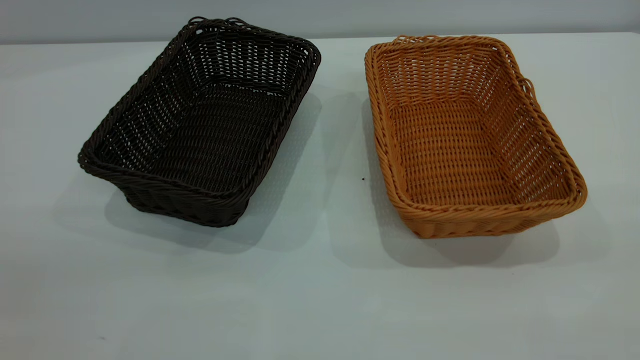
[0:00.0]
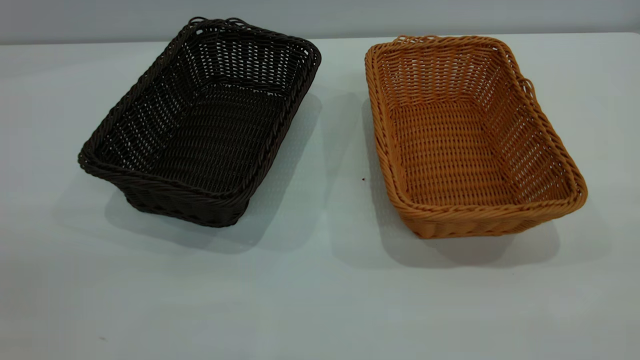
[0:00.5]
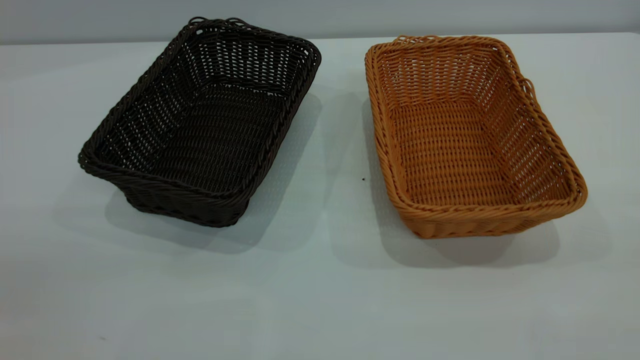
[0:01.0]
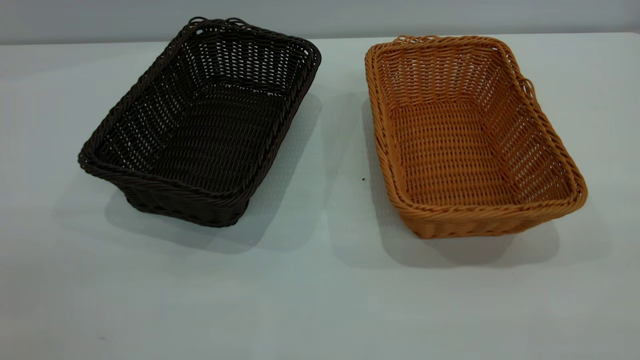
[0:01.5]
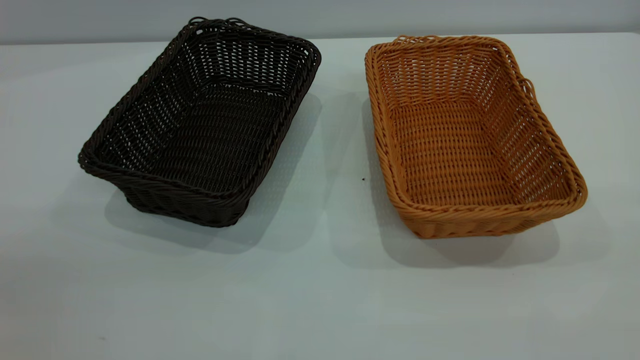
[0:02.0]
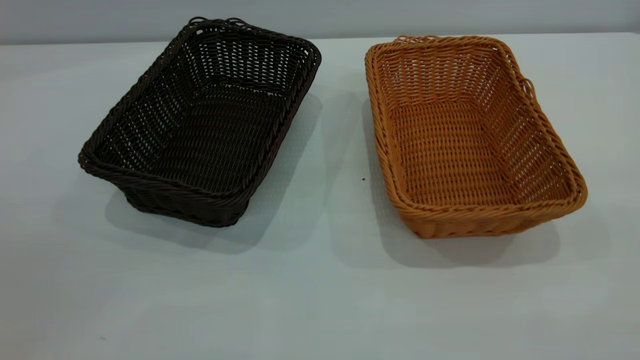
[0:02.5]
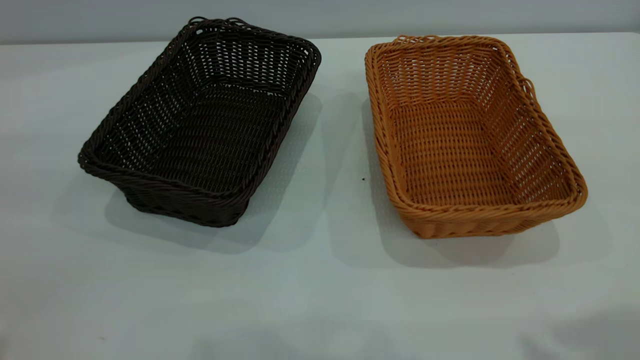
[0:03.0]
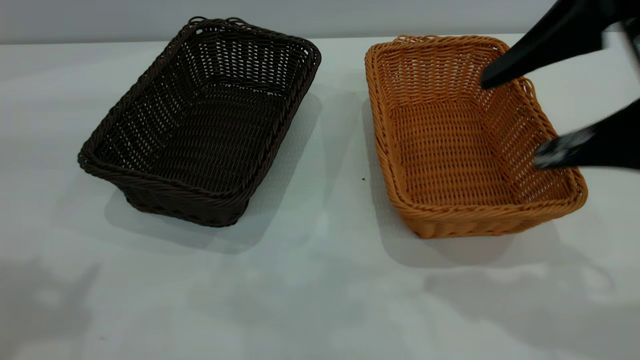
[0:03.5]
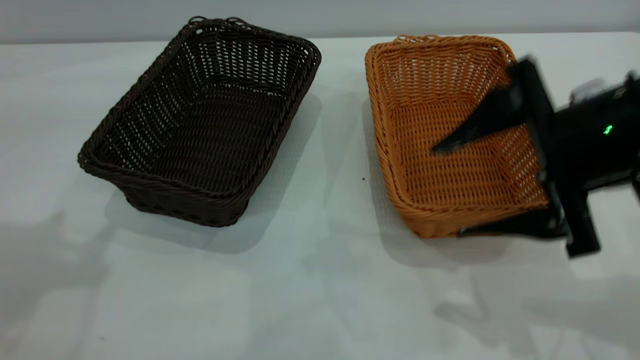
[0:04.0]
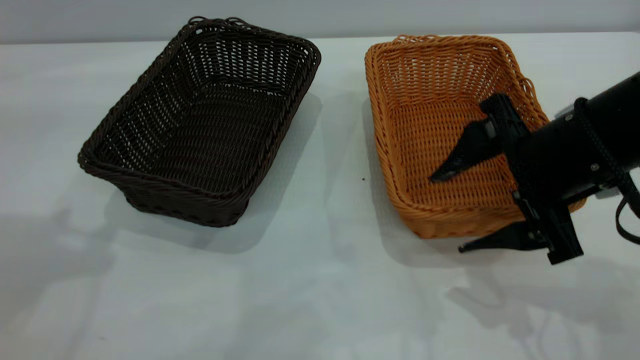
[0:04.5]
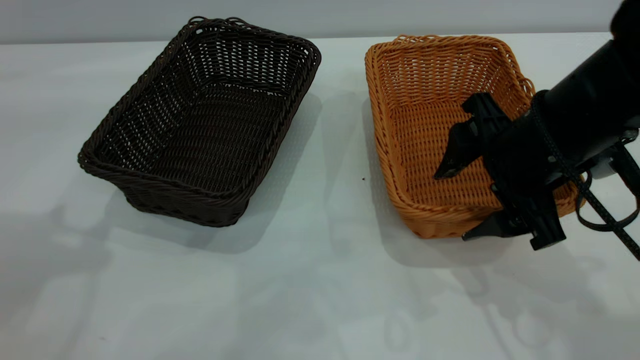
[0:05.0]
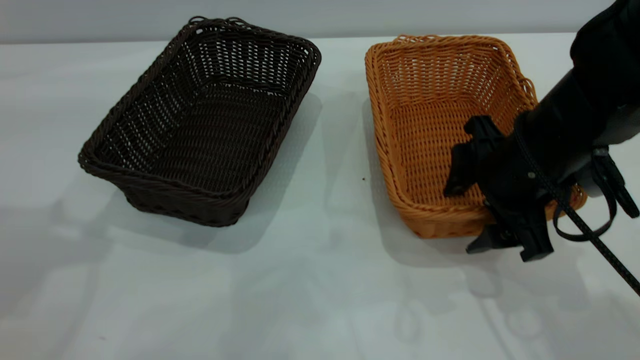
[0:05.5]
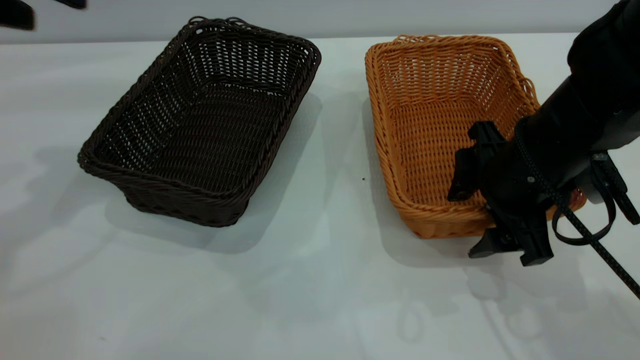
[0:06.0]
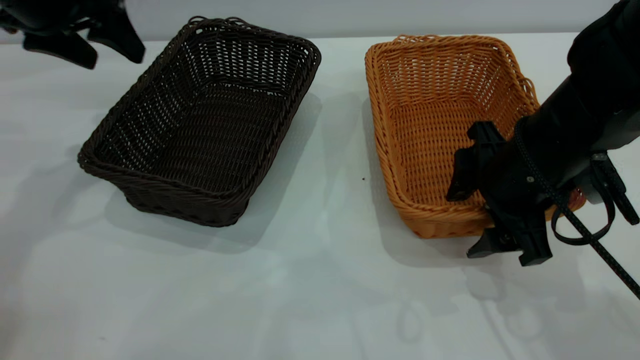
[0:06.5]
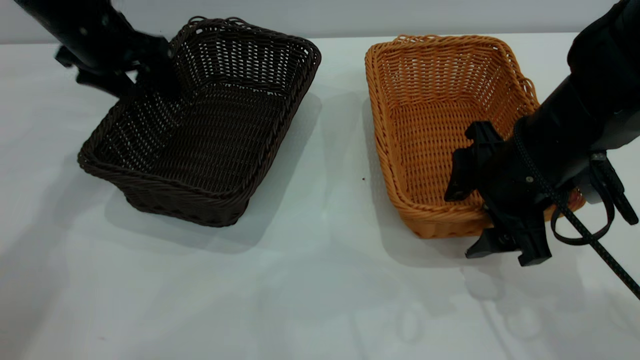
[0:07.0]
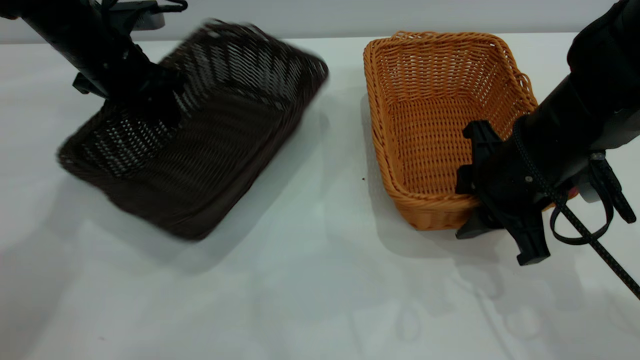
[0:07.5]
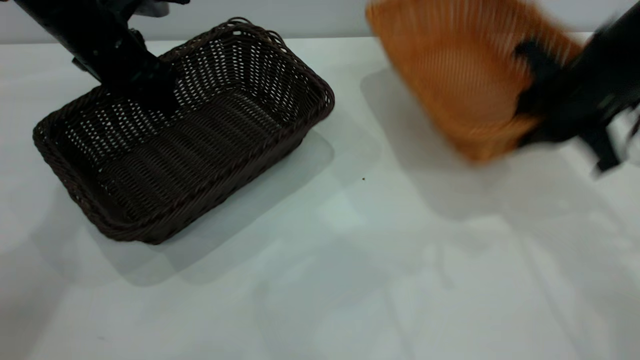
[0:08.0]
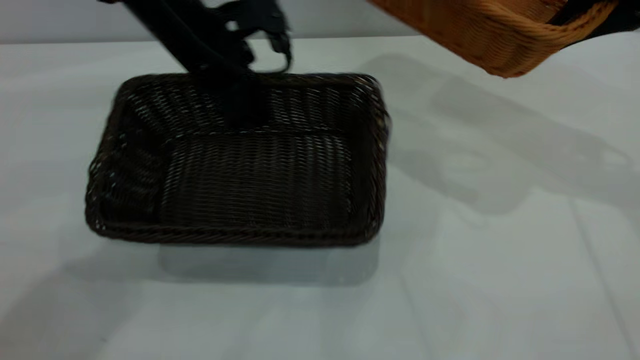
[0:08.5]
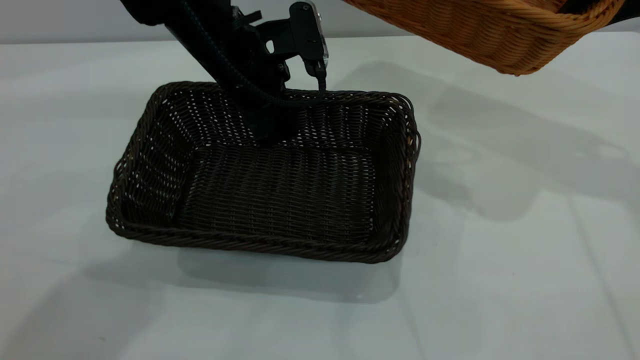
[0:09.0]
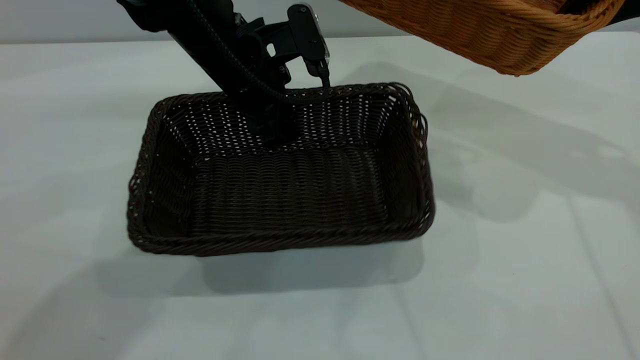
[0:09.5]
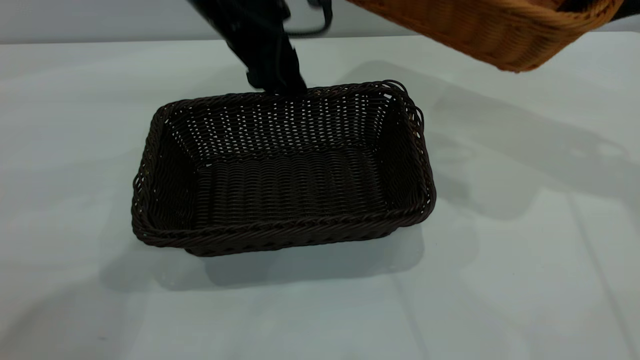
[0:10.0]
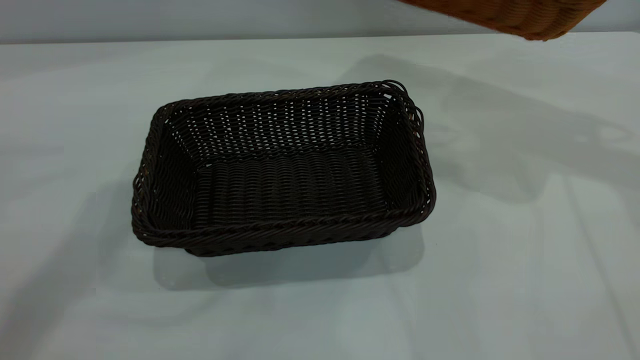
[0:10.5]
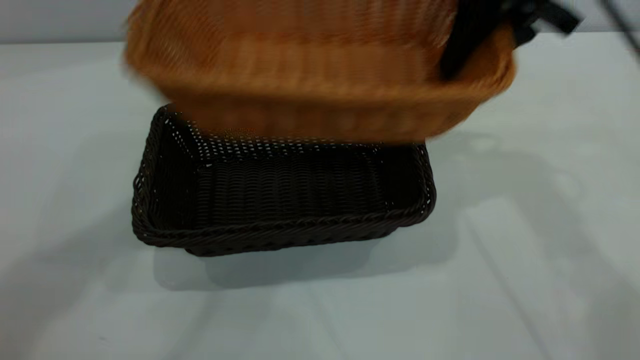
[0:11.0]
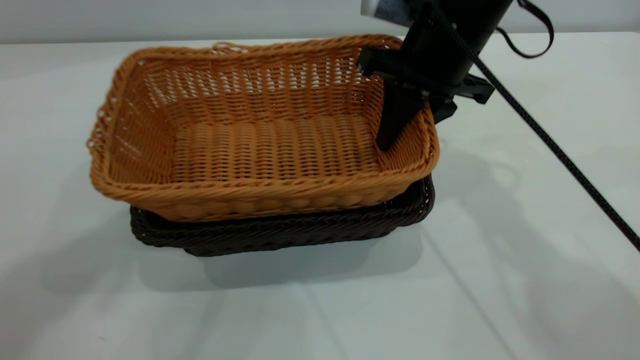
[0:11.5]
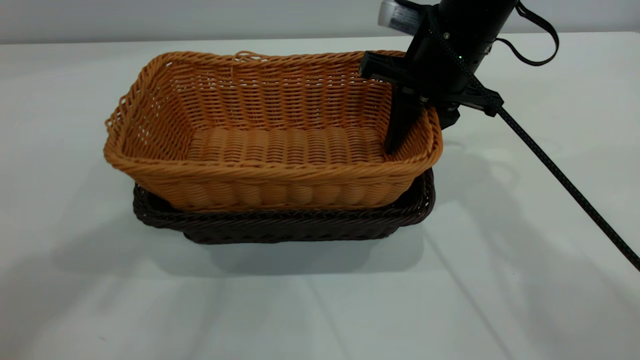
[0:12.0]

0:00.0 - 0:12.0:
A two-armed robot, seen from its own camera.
Task of the whole recording: the left gripper grasp the black basket and place it in the center of the table, the right gripper grasp the brown basket and place it inside the black one.
Step, 0:00.0 - 0:08.0: Pick up the light basket with the right gripper.
Step, 0:08.5 - 0:10.0: Move the dark basket to the center of view.
0:00.0 - 0:02.0: Both grippers stay put.
0:02.0 - 0:04.0: The right gripper heads forward and downward, covering approximately 30 cm.
0:04.0 - 0:06.0: The left gripper travels forward and downward by some 15 cm; the right gripper moves downward, some 5 cm.
0:06.0 - 0:08.0: The left gripper shifts some 15 cm downward, forward and to the right, and closes; the right gripper travels to the right, upward and forward by some 10 cm, and closes up.
0:08.0 - 0:10.0: The left gripper shifts roughly 15 cm to the right and upward, and opens its fingers. Meanwhile the right gripper is displaced upward by about 10 cm.
0:10.0 - 0:12.0: The left gripper moves upward and backward, some 30 cm; the right gripper moves to the left and downward, about 20 cm.

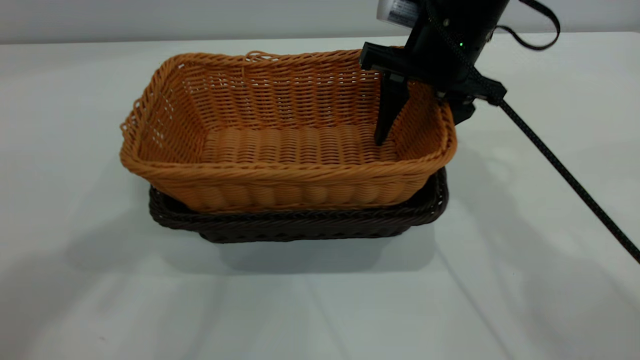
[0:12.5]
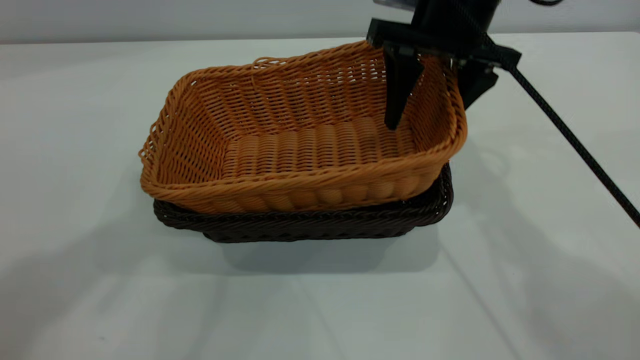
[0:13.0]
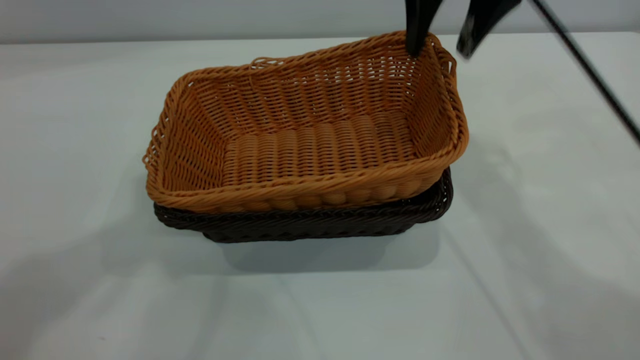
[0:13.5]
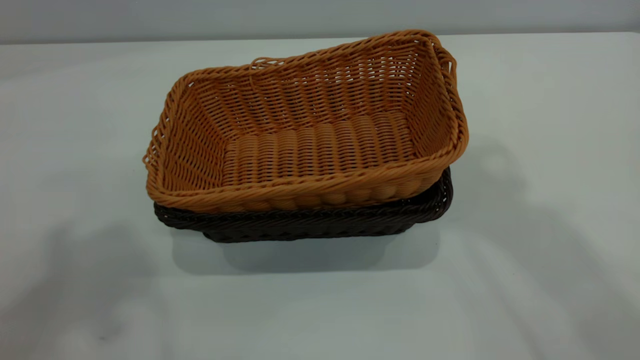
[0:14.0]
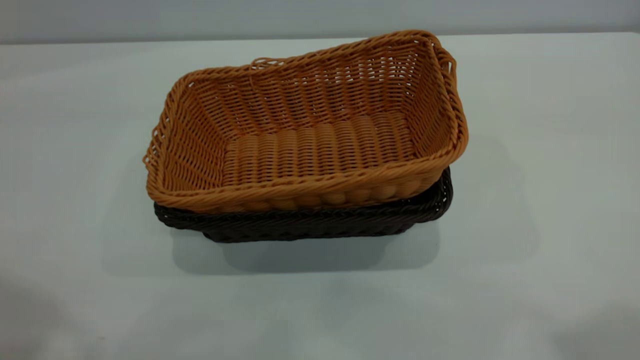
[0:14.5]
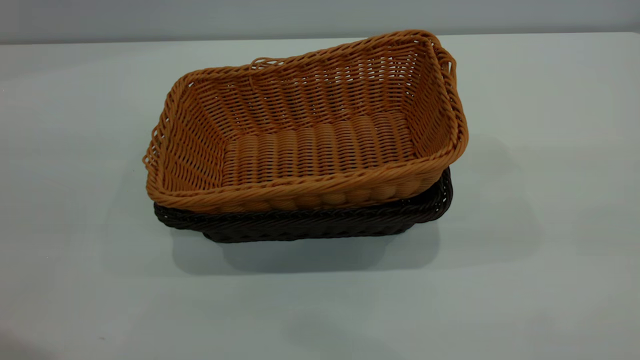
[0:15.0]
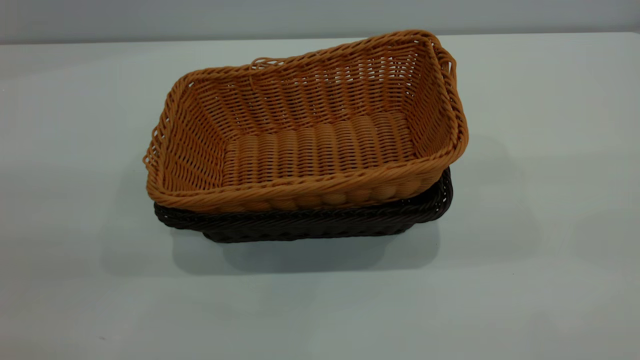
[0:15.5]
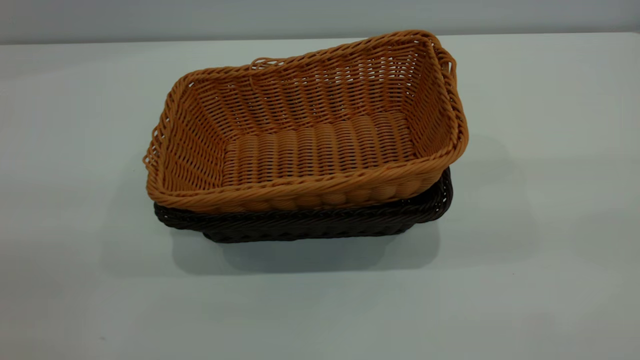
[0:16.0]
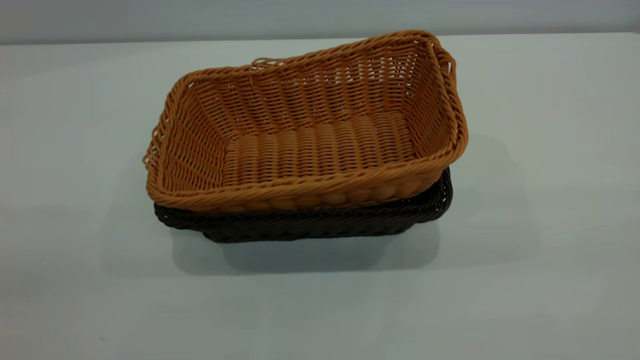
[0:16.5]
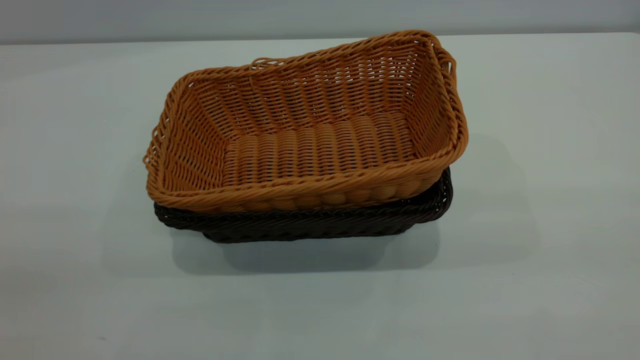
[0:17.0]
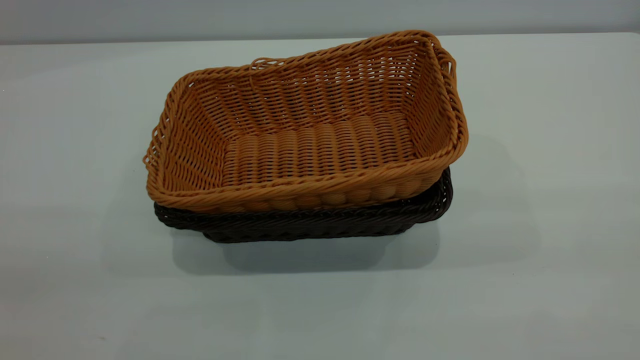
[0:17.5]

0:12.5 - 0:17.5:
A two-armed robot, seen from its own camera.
Task of the whole recording: the left gripper grasp the black basket and place it in the center of the table, the right gripper grasp the brown basket and place it inside the black one.
0:12.5 - 0:15.0: The left gripper is displaced backward, downward and to the left by roughly 25 cm; the right gripper goes roughly 40 cm backward, upward and to the right.

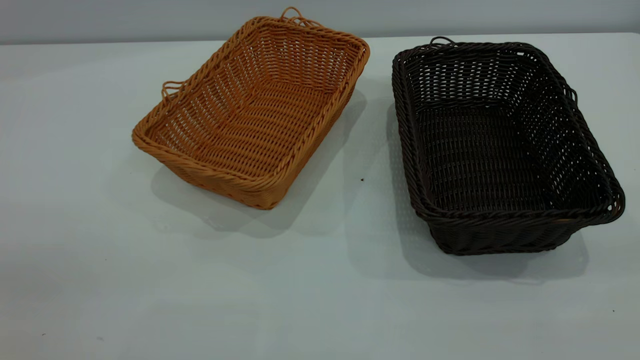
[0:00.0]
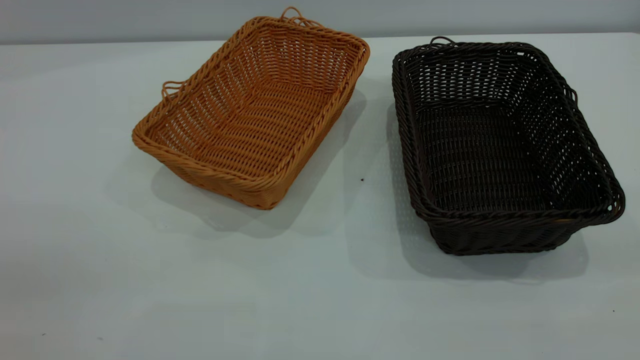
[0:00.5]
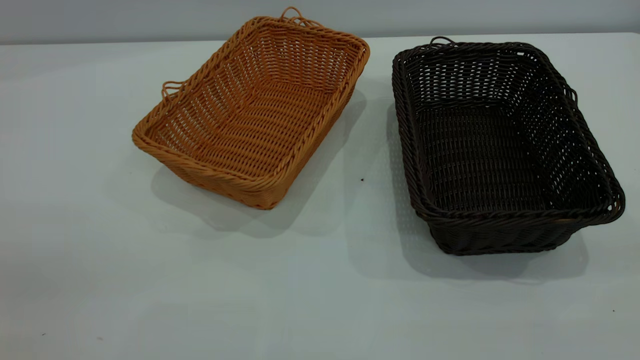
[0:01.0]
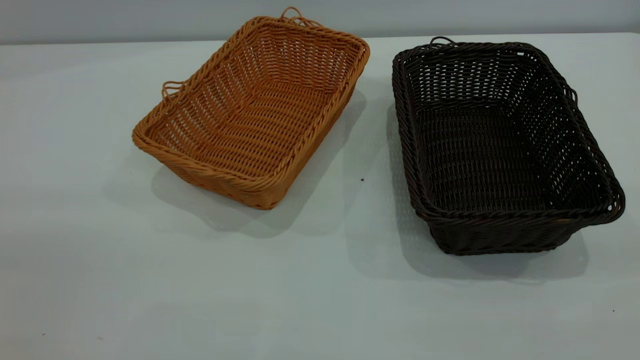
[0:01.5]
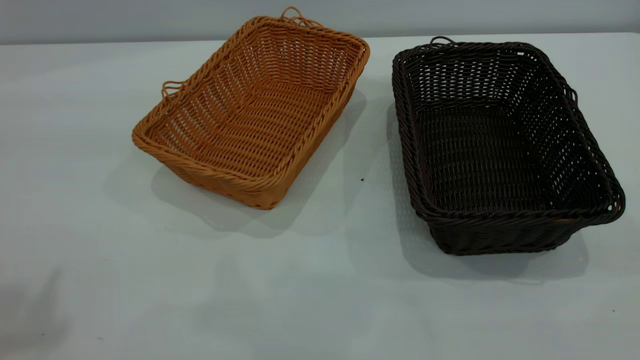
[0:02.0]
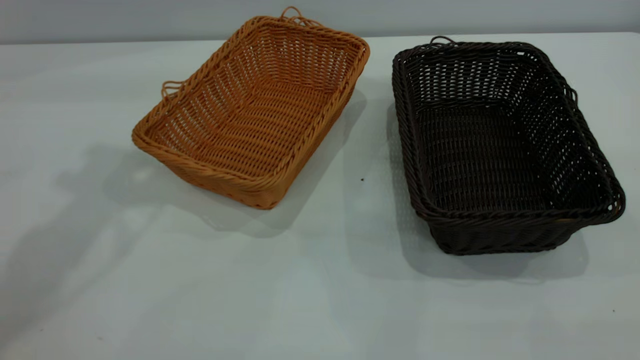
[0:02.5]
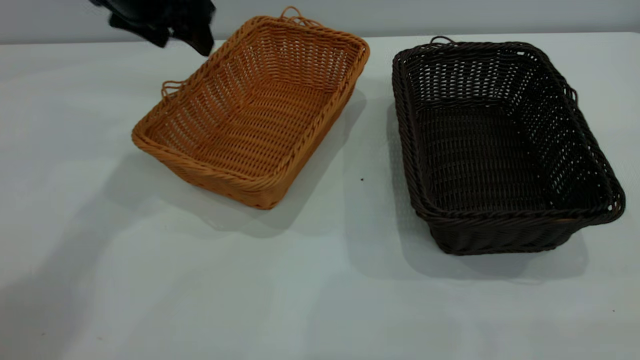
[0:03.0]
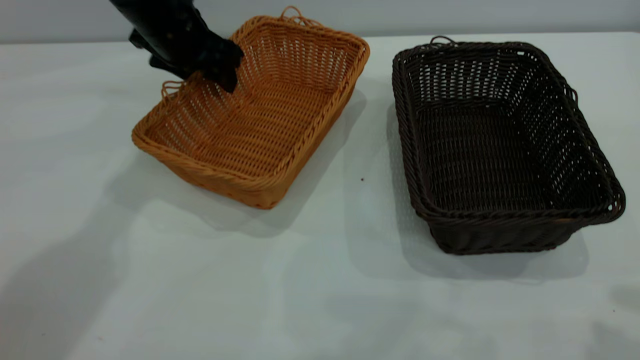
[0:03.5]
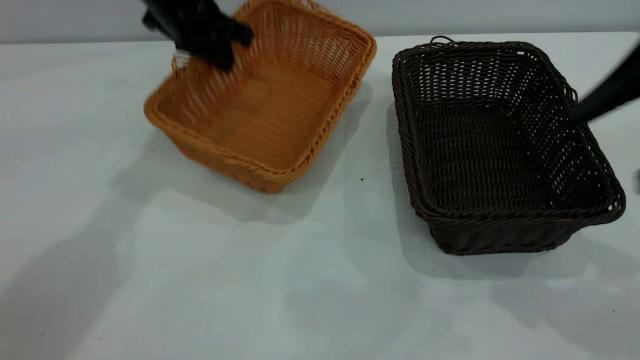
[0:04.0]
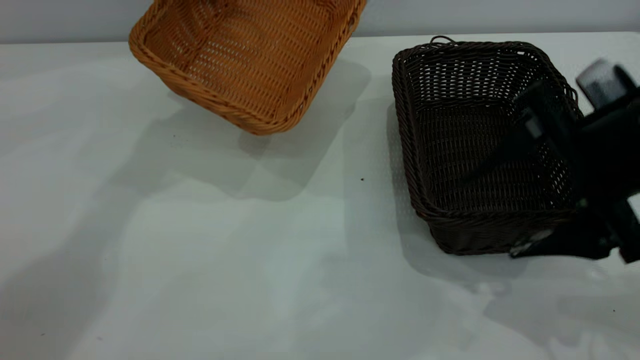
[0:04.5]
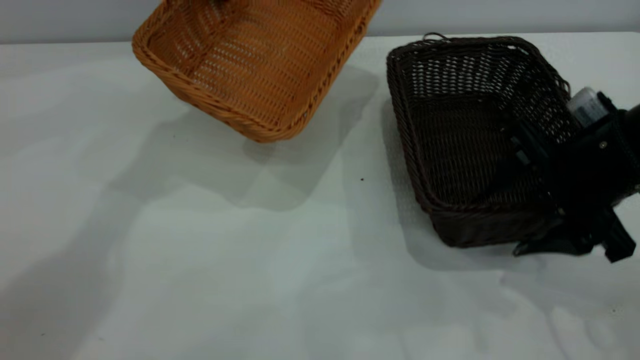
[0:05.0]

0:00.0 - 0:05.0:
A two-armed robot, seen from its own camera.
Task of the whole recording: the left gripper grasp the brown basket and place it in the center of the table, the right gripper grasp the black basket and place it inside the brown one.
0:02.5 - 0:05.0: The left gripper shifts approximately 20 cm forward, to the right and downward, and closes up. The right gripper shifts approximately 35 cm downward and forward.
